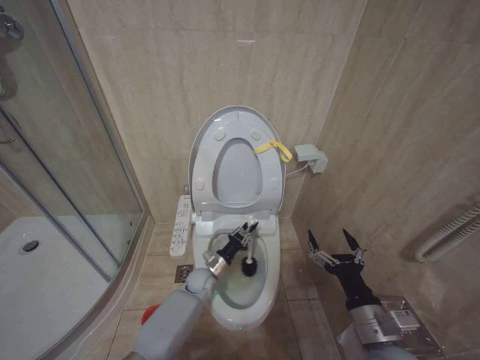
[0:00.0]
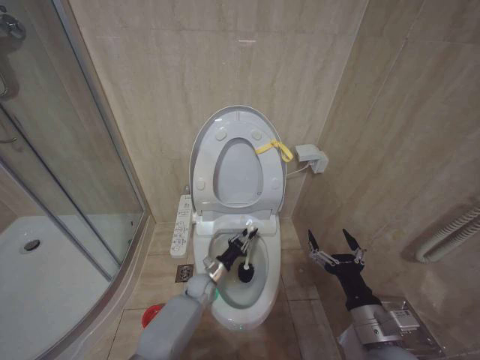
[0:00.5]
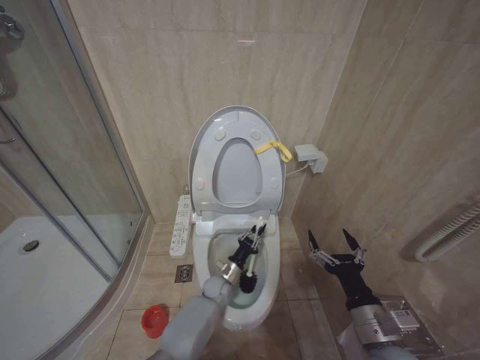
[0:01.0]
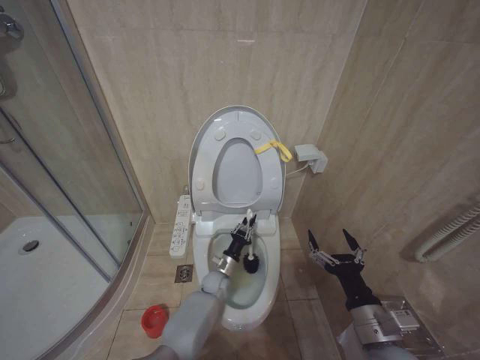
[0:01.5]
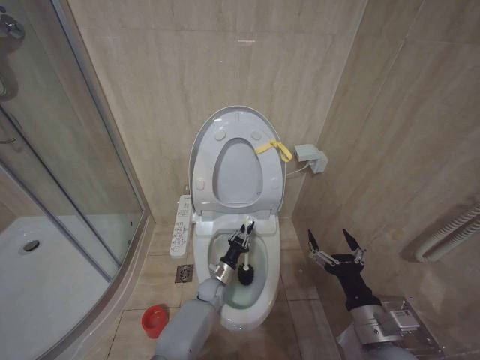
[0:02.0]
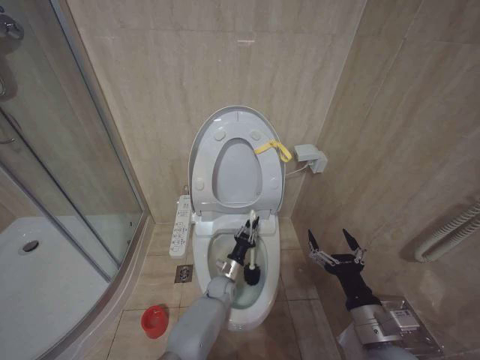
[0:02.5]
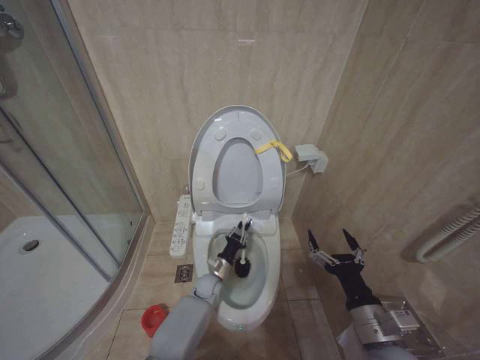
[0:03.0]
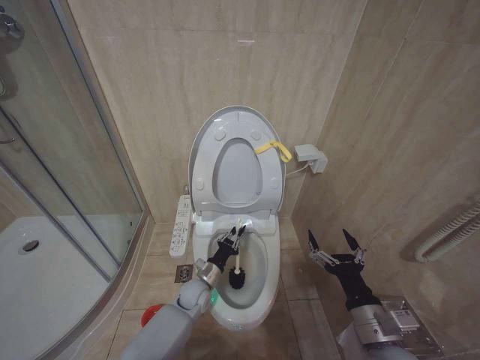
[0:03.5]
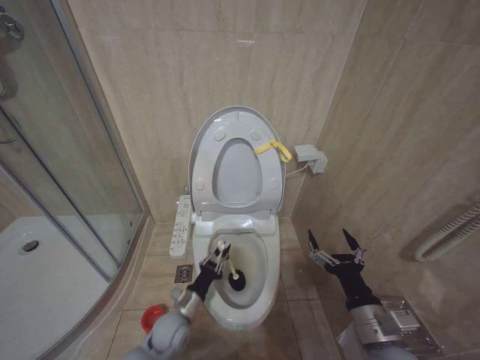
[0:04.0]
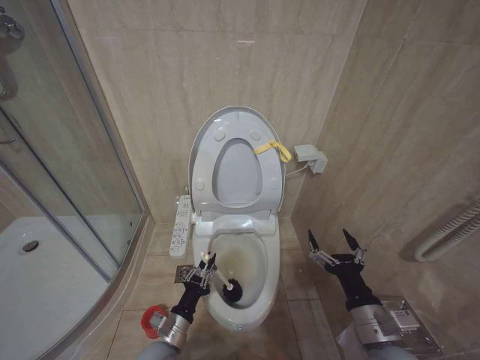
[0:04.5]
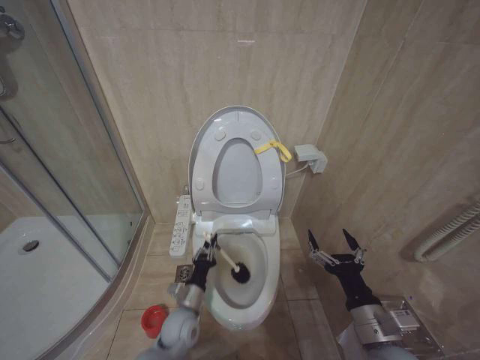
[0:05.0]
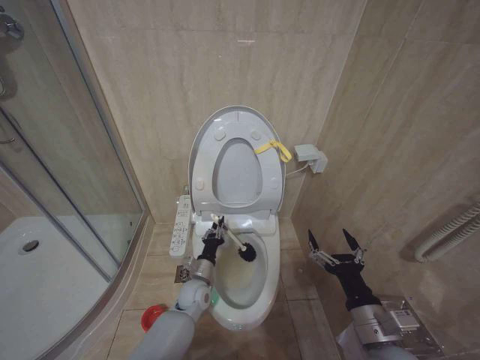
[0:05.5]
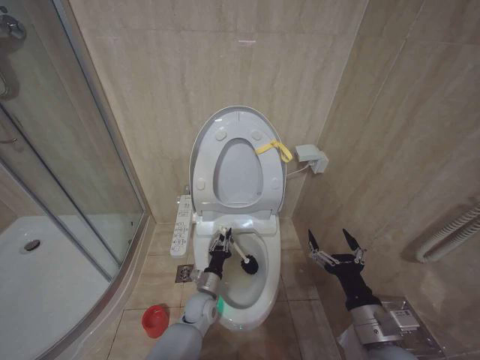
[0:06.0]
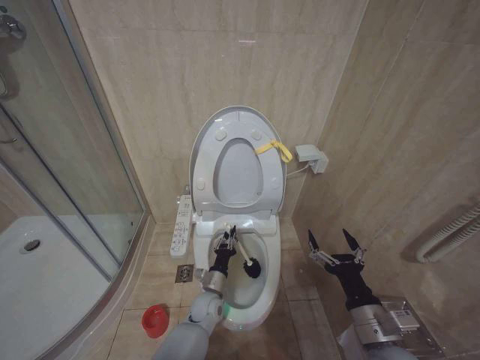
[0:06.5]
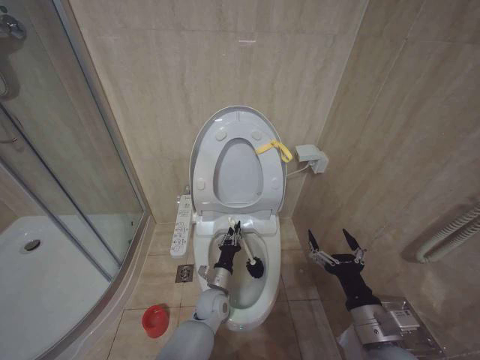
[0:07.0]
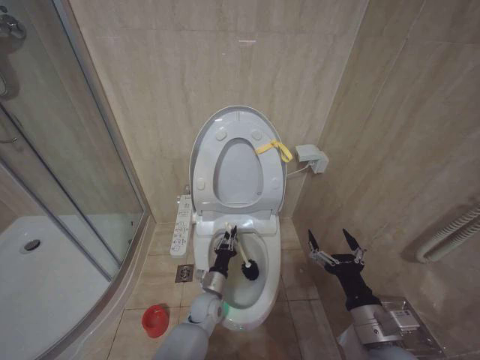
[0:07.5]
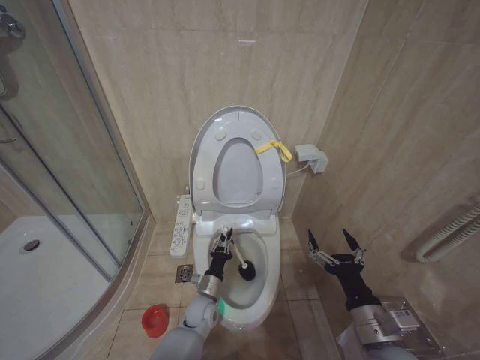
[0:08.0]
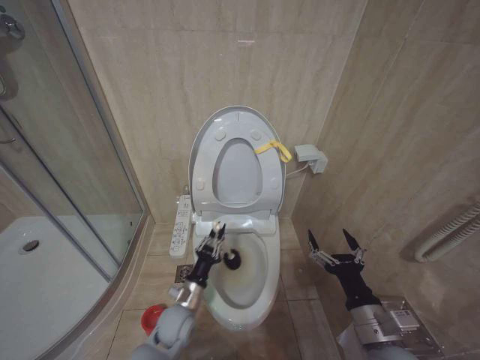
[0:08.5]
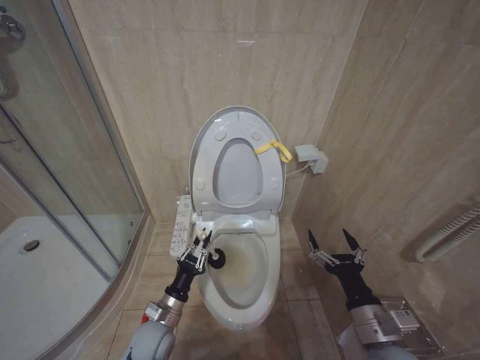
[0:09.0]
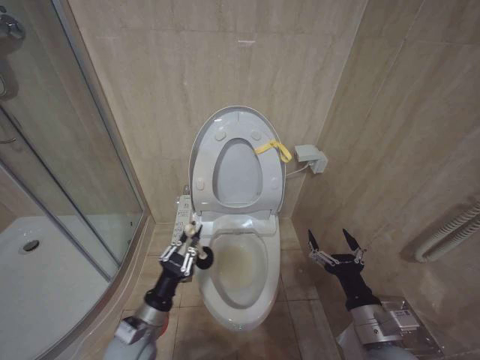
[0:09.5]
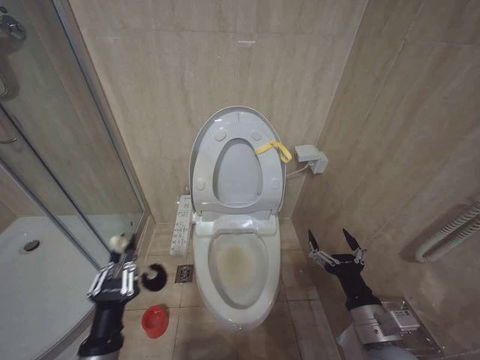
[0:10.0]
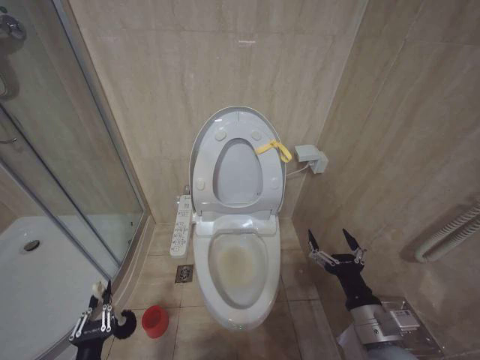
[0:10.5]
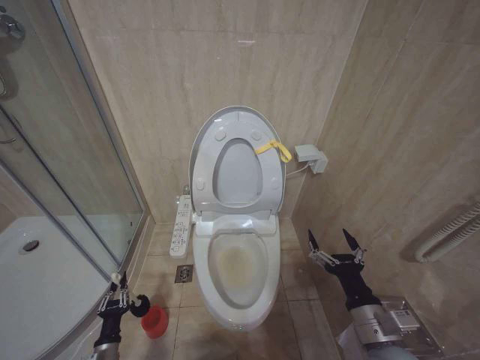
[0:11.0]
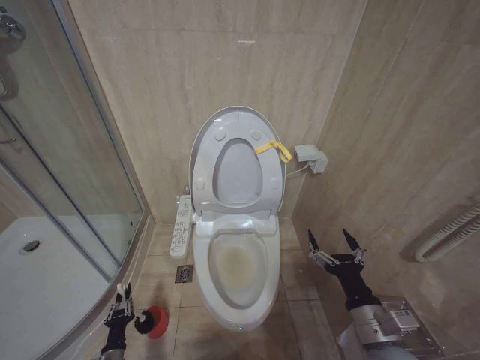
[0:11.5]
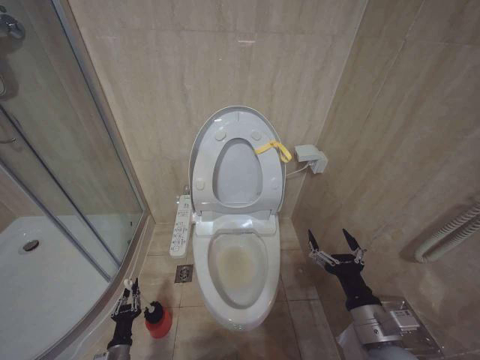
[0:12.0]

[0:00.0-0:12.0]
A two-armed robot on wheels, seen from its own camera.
Task of the whole recording: Open the toilet lid, clean the toilet bowl with a toilet brush, close the toilet lid, and flush.
0:00.0 to 0:02.0: The left gripper is displaced to the right by approximately 5 cm.
0:02.0 to 0:04.0: The left gripper shifts roughly 15 cm backward, to the left and upward.
0:04.0 to 0:06.0: The left gripper travels to the right by roughly 5 cm, and travels backward and back again, some 10 cm each way.
0:08.0 to 0:10.0: The left gripper travels backward, upward and to the left by roughly 35 cm.
0:10.0 to 0:12.0: The left gripper moves downward, some 30 cm.

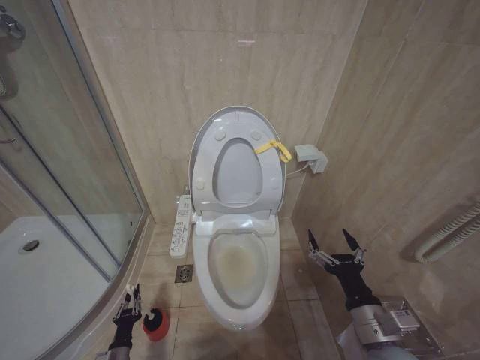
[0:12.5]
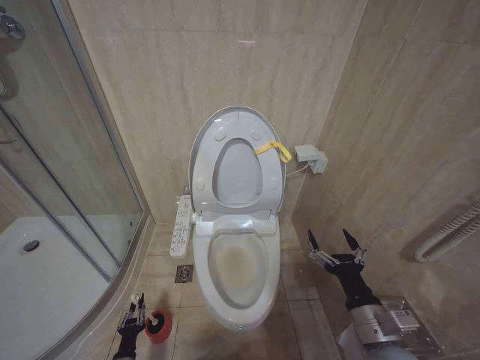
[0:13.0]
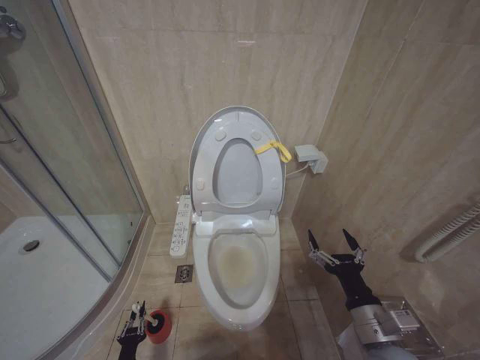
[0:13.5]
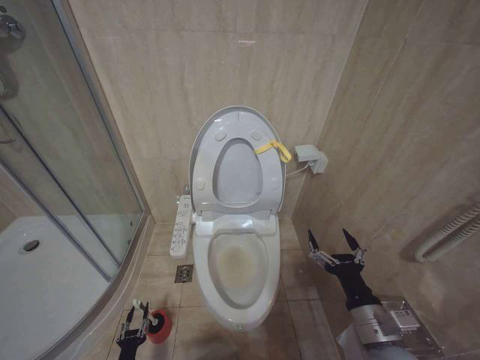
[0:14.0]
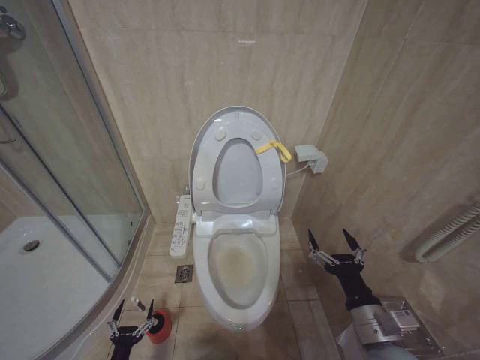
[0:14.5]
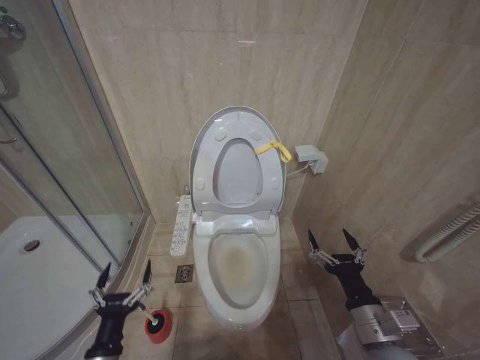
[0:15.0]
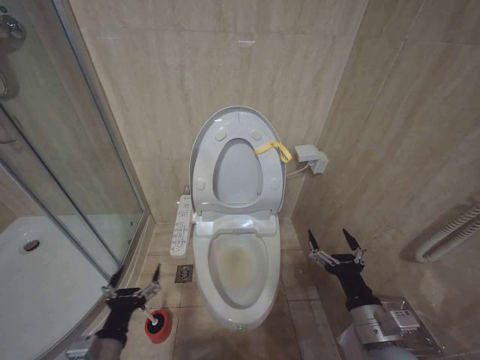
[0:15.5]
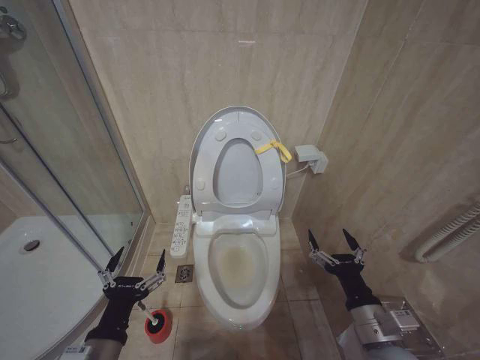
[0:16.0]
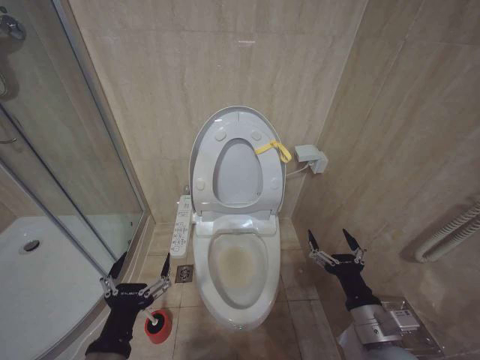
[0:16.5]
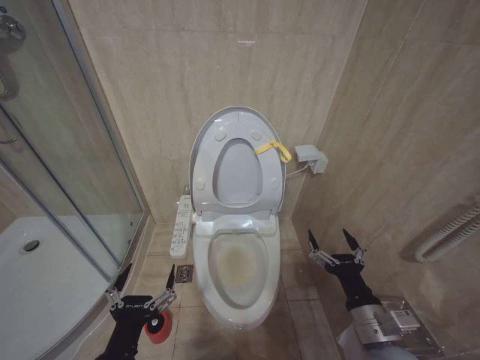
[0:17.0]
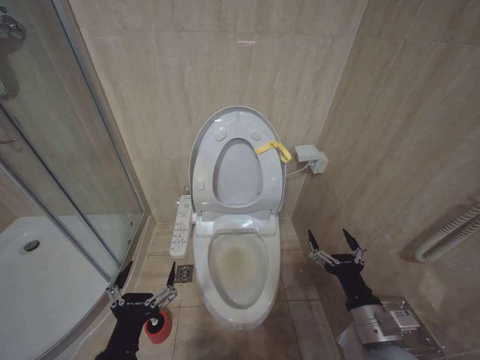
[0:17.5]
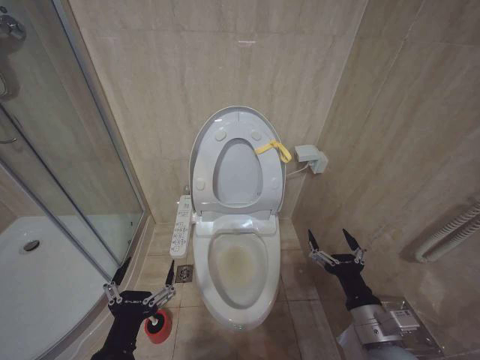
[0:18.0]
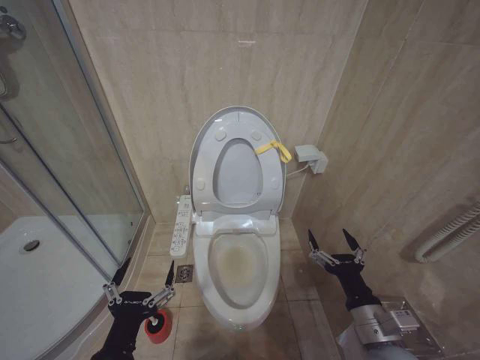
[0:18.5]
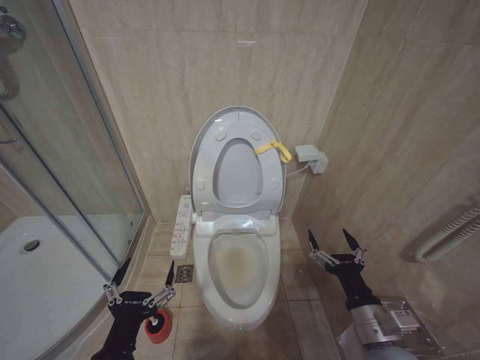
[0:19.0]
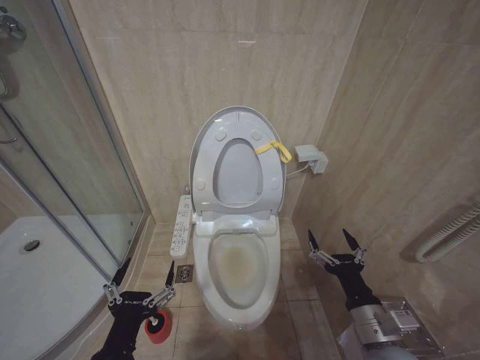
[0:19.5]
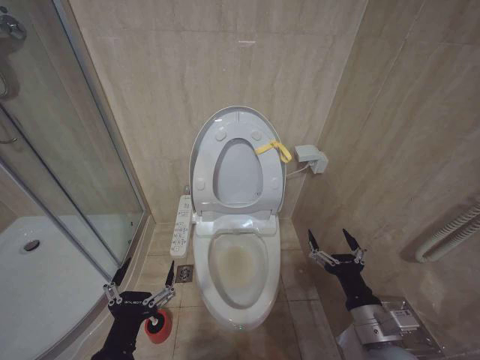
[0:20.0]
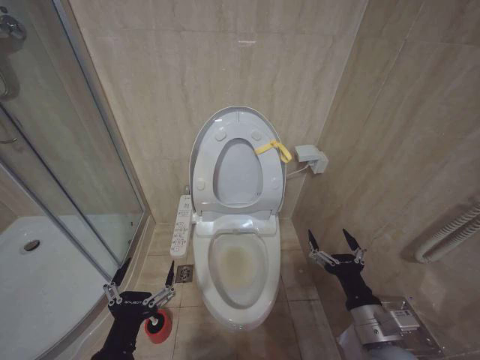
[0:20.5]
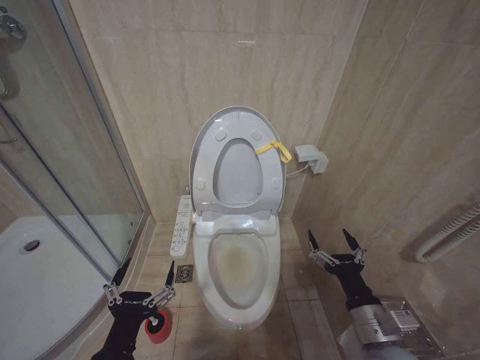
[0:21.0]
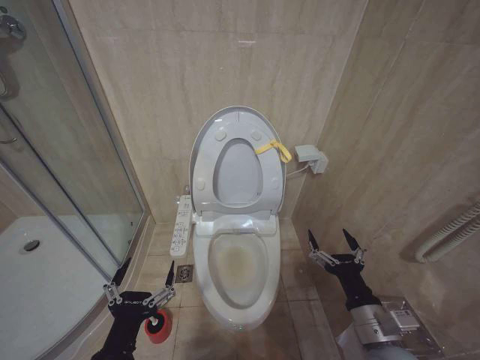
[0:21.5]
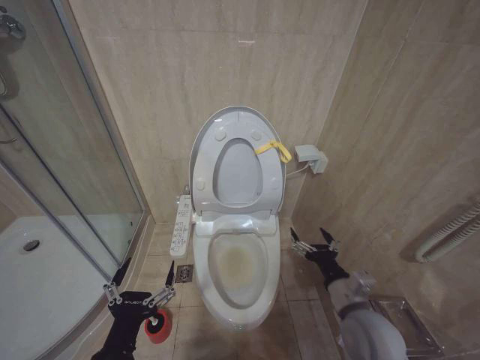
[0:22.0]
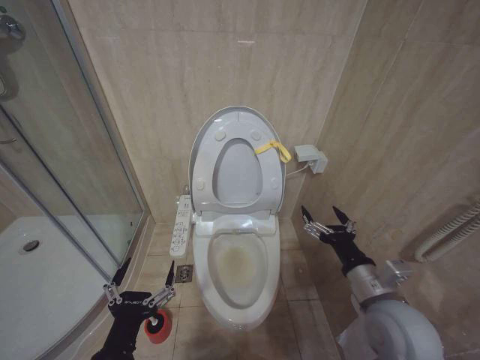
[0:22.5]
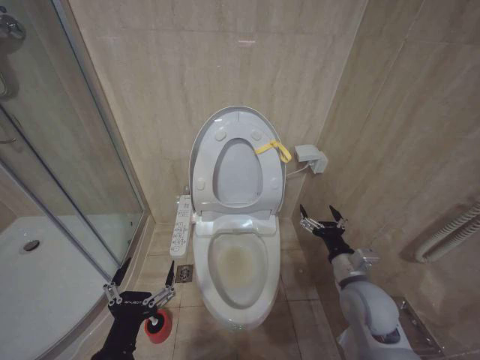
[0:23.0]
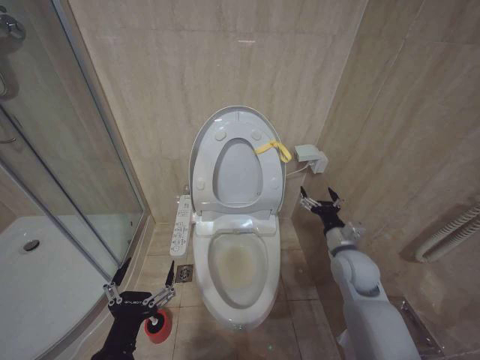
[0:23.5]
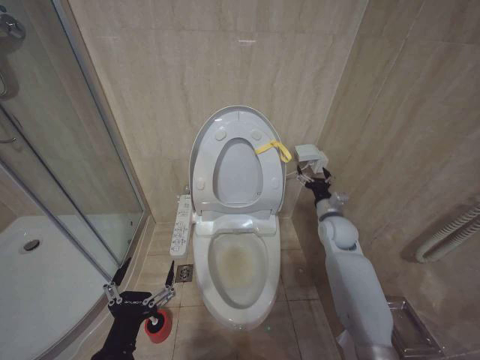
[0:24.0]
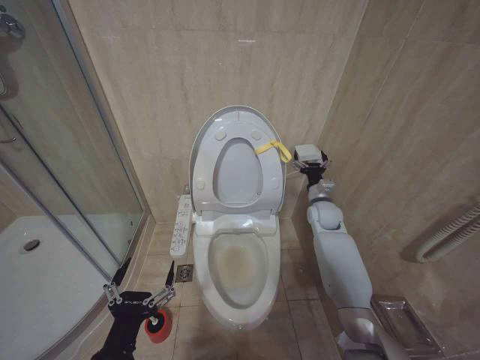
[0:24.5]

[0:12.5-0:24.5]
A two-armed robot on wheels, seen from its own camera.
Task of the whole recording: Open the toilet lid, clean the toilet bowl with a toilet brush, close the toilet lid, and flush.
0:12.5 to 0:14.5: The left gripper goes about 5 cm backward, and opens its fingers.
0:14.5 to 0:16.5: The left gripper moves upward, approximately 35 cm.
0:16.5 to 0:18.5: There are only small adjustments of the grippers.
0:18.5 to 0:20.5: The two grippers keep their place.
0:20.5 to 0:22.5: The right gripper goes about 5 cm upward.
0:22.5 to 0:24.5: The right gripper goes roughly 30 cm forward.

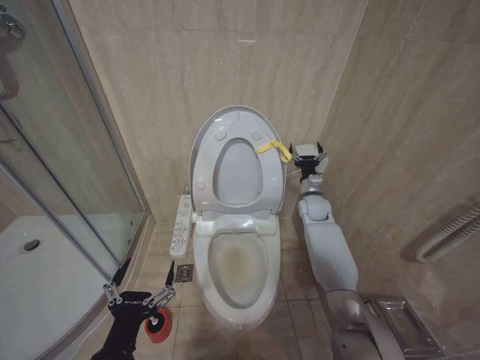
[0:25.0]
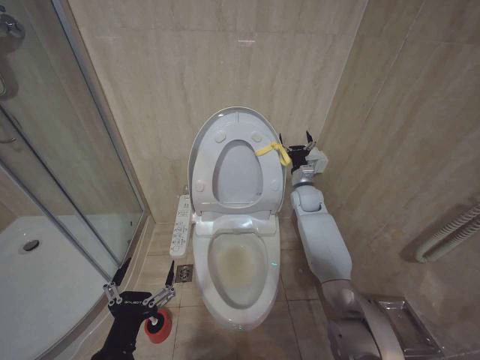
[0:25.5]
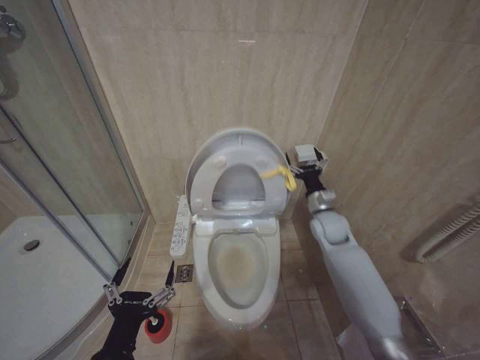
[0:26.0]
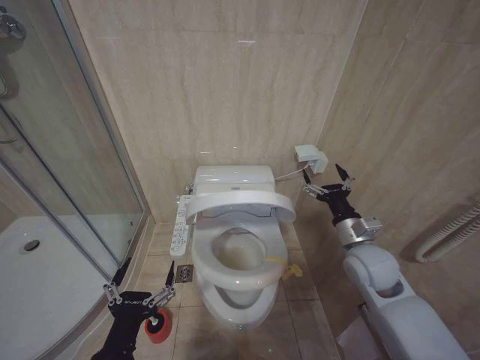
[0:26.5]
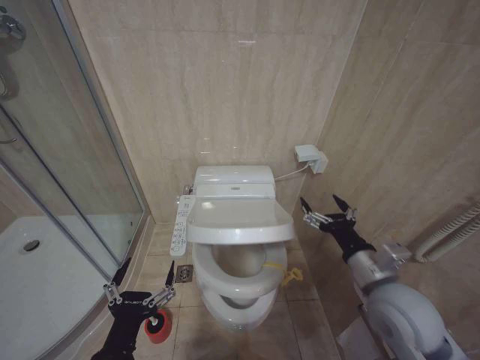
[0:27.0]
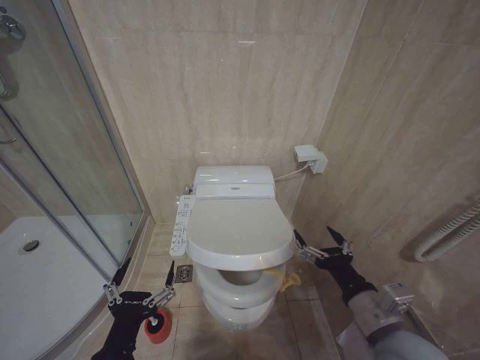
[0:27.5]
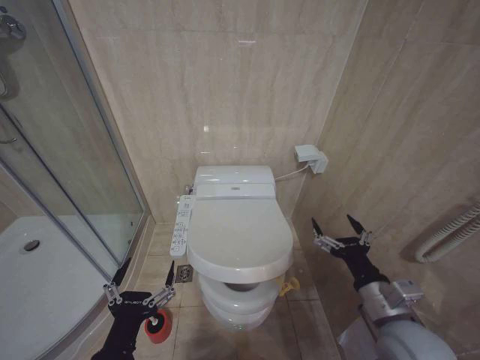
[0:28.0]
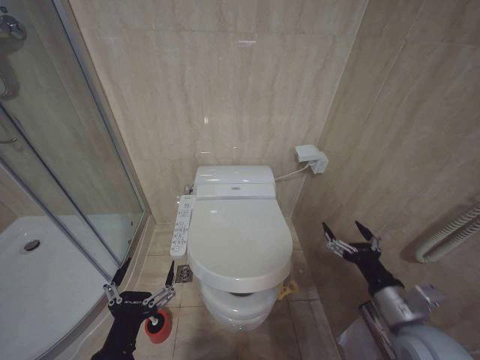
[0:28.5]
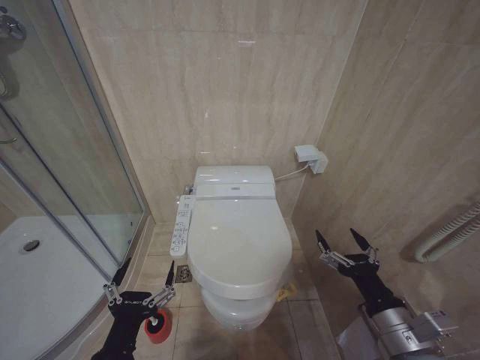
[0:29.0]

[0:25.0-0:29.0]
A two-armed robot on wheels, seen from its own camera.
Task of the whole recording: Open the toilet lid, clean the toilet bowl with a toilet brush, close the toilet lid, and flush.
0:25.0 to 0:27.0: The right gripper is displaced backward by about 30 cm.
0:27.0 to 0:29.0: The right gripper heads backward, covering roughly 10 cm.
